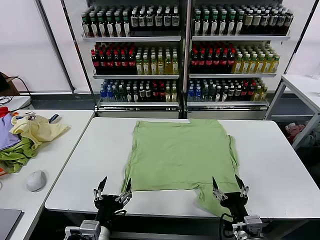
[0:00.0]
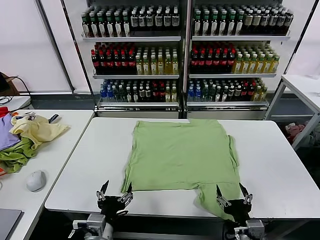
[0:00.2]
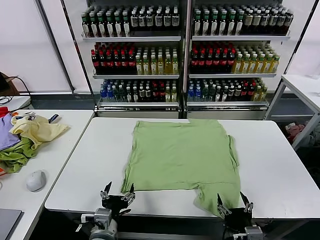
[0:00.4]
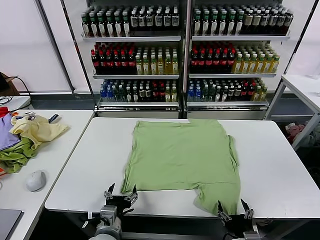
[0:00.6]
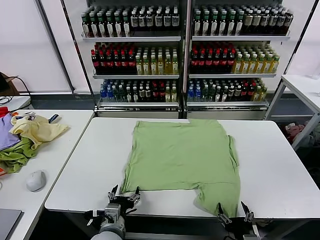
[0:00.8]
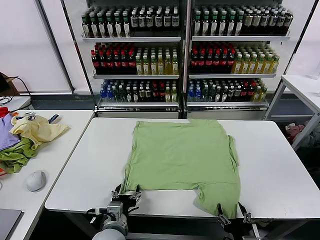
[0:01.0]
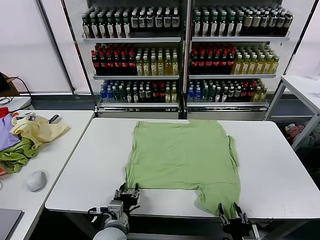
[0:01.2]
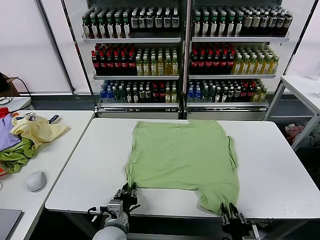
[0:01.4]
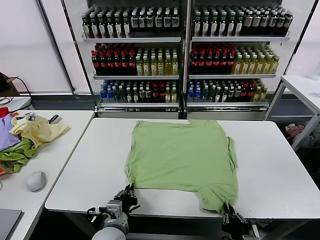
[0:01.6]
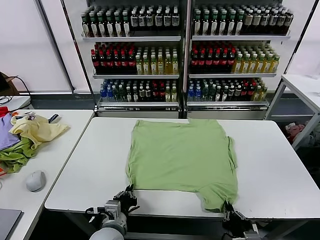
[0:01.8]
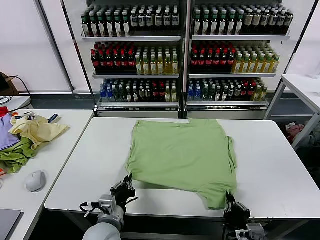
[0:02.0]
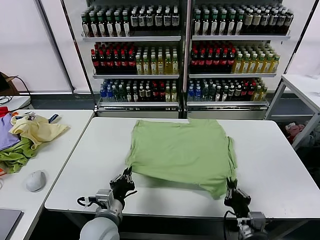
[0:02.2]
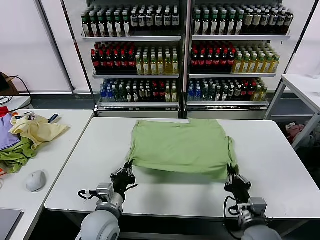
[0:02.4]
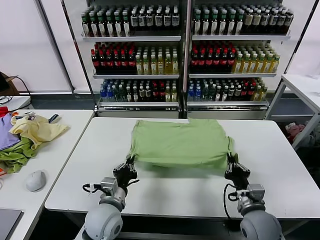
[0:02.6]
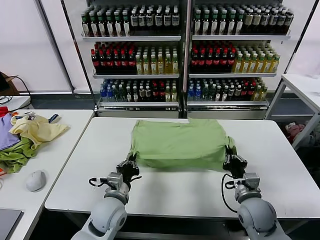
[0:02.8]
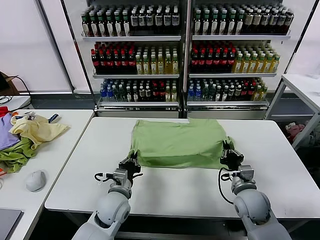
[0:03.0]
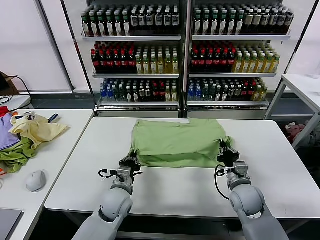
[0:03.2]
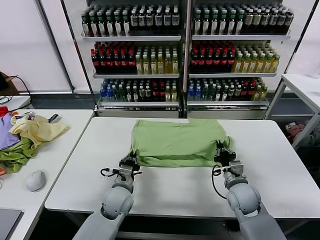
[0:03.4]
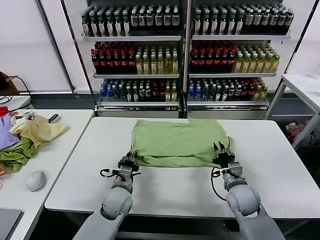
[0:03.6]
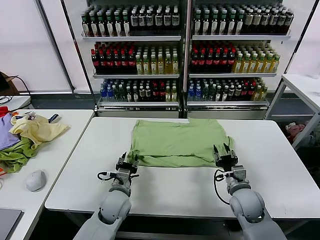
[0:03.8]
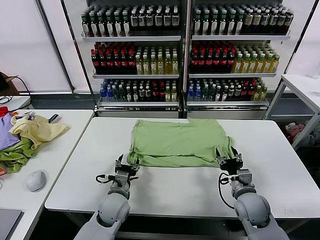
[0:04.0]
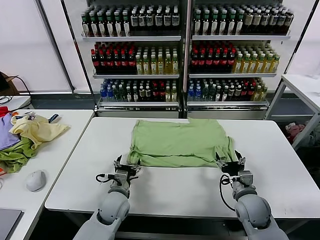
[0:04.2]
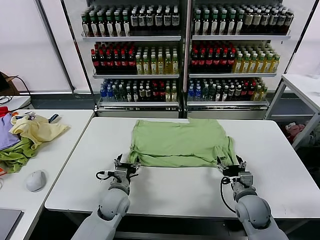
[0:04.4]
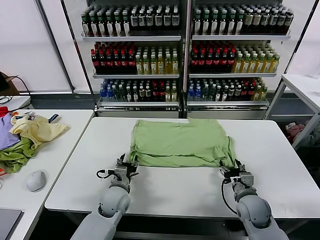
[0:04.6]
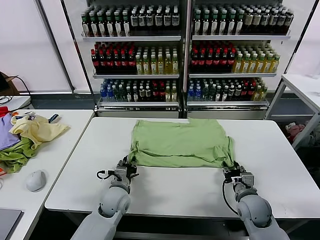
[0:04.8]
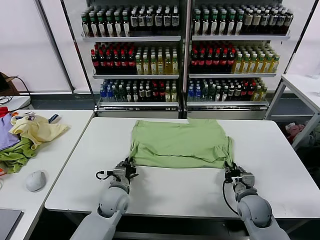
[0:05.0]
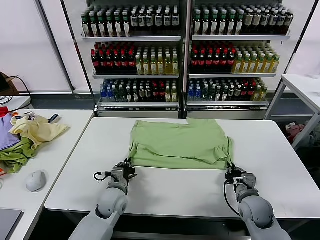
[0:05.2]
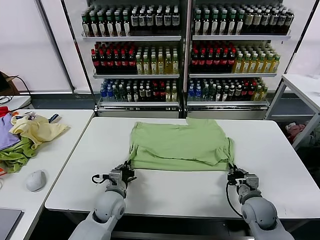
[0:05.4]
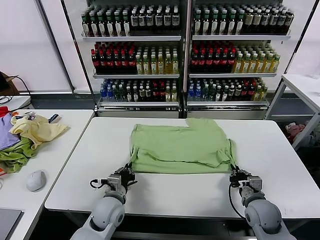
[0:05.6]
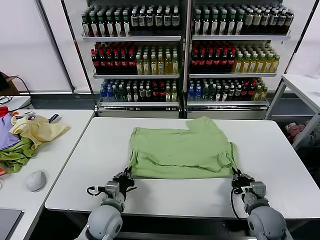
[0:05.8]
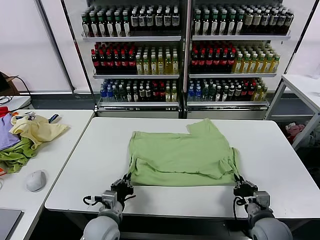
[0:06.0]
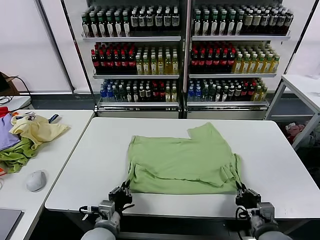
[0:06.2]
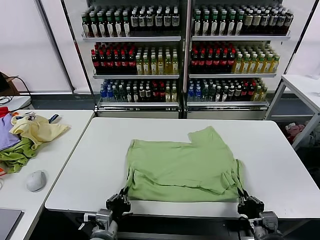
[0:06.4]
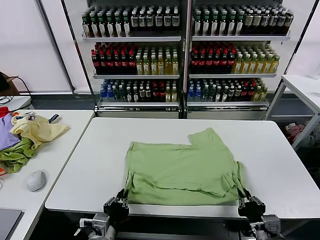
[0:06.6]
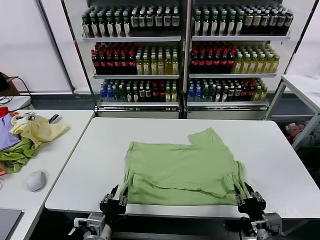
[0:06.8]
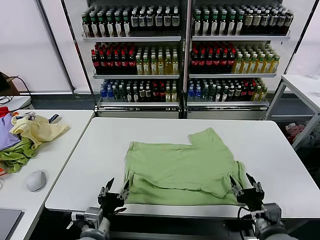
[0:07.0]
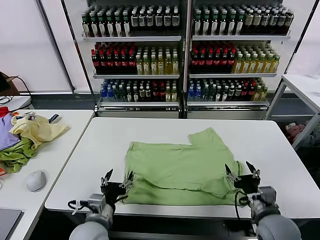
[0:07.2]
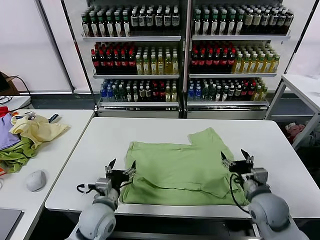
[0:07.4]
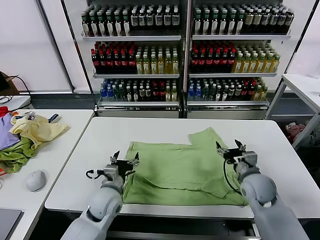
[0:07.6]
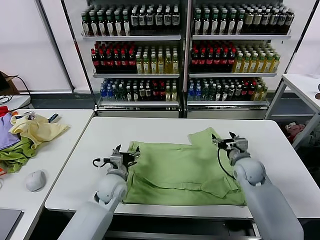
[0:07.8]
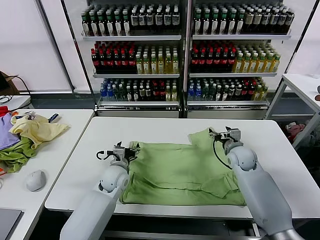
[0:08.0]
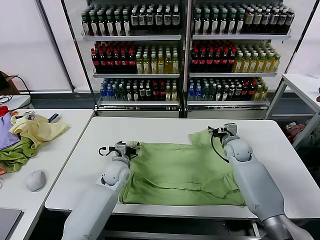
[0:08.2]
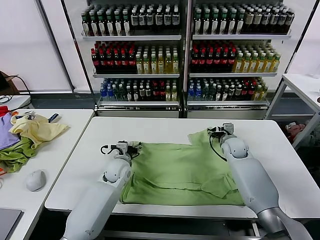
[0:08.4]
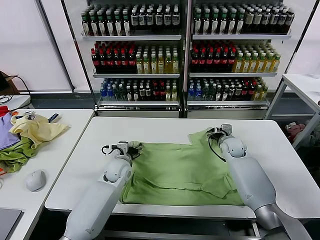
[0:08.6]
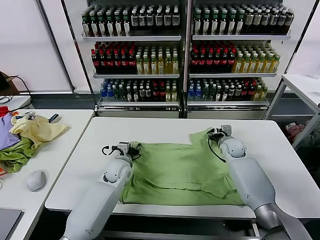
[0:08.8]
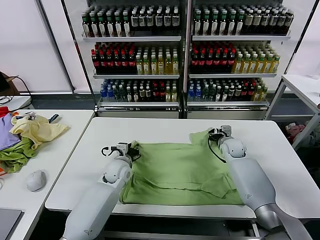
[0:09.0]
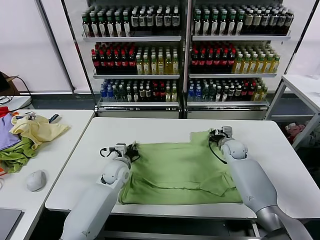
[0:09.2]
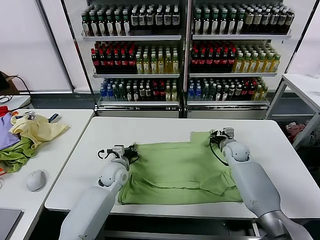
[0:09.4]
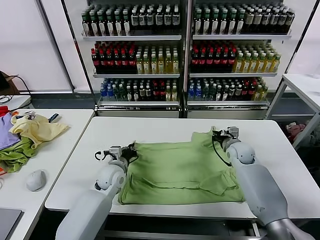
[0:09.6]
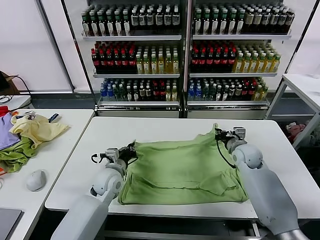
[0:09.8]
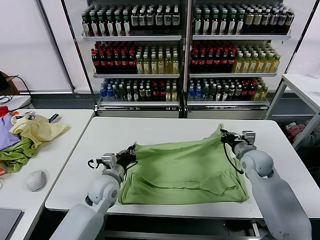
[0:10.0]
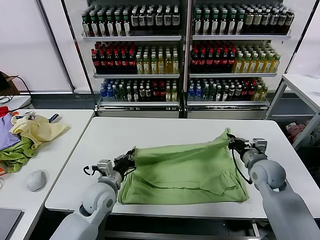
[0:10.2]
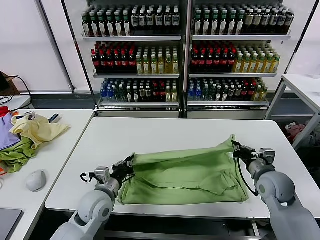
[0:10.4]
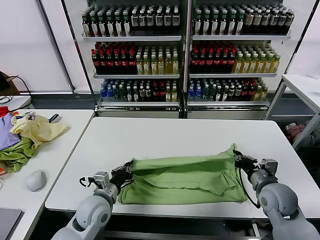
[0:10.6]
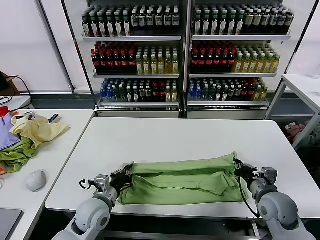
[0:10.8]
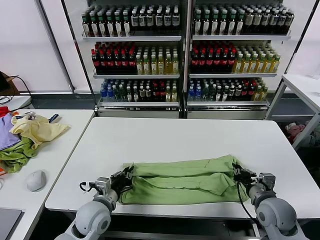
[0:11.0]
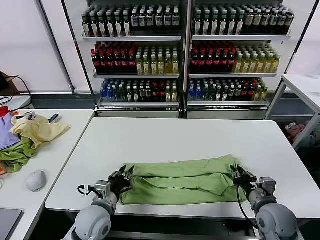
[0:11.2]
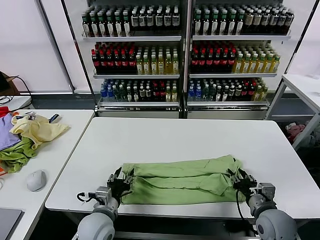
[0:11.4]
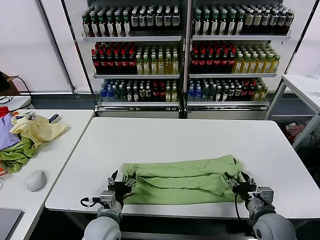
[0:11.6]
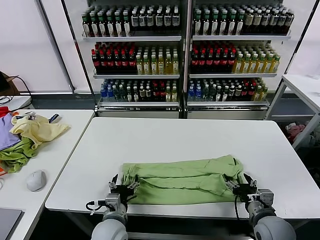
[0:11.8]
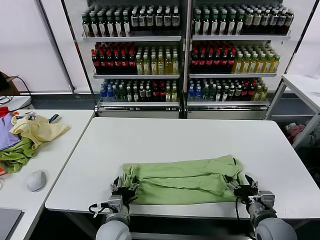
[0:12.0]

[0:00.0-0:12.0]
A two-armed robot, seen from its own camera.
Task of the whole recording: fold and organize the clothes.
Step, 0:00.0 to 0:01.8: use both grippers simultaneously to clamp the lower edge of the clothing fabric.
Step, 0:02.0 to 0:03.6: use both grippers to drag the lower edge of the fabric forward and fold it over the upper edge.
Step, 0:03.8 to 0:06.8: Drag the clothes downward with both gripper.
Step, 0:07.0 to 0:09.2: use both grippers simultaneously to clamp the upper edge of the clothing fabric.
Step, 0:09.6 to 0:11.6: use both grippers to drag the upper edge of the fabric backward and fold it over the lower edge.
0:01.6 to 0:03.0: The right gripper heads forward, covering approximately 20 cm; the left gripper heads forward, covering roughly 10 cm.
0:03.0 to 0:04.4: The right gripper opens up, while the left gripper opens up.
0:04.4 to 0:06.0: Both grippers move backward, some 10 cm. The left gripper closes its fingers. The right gripper closes its fingers.
0:06.0 to 0:07.6: The right gripper is displaced forward by some 15 cm, and opens its fingers. Meanwhile the left gripper is displaced forward by roughly 5 cm, and opens.
0:07.6 to 0:09.0: Both grippers move forward, some 15 cm. The left gripper closes; the right gripper closes its fingers.
0:09.0 to 0:10.4: The grippers both shift backward by approximately 15 cm. The left gripper closes up. The right gripper closes.
0:10.4 to 0:12.0: The left gripper shifts about 10 cm backward, to the right and downward, and opens up. Meanwhile the right gripper moves backward and downward, some 10 cm, and opens its fingers.

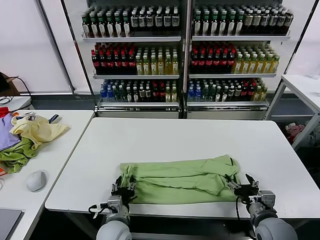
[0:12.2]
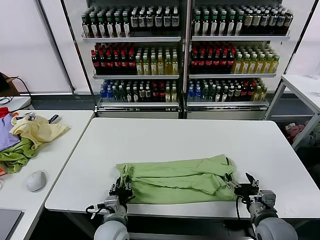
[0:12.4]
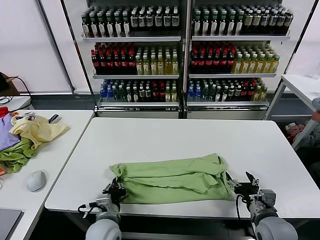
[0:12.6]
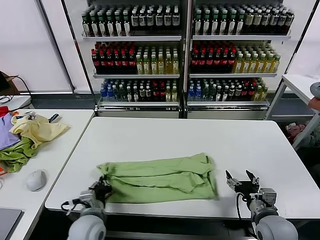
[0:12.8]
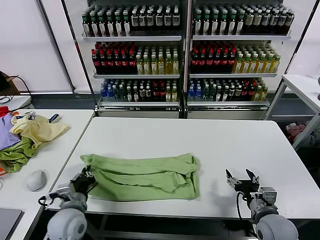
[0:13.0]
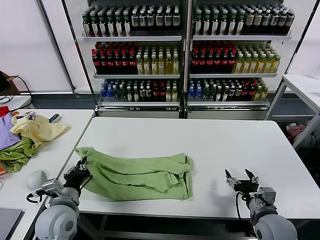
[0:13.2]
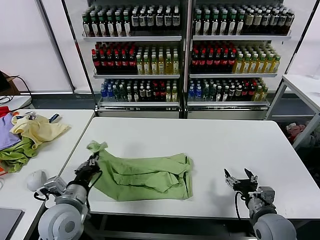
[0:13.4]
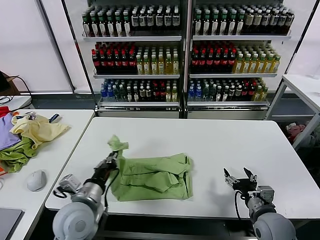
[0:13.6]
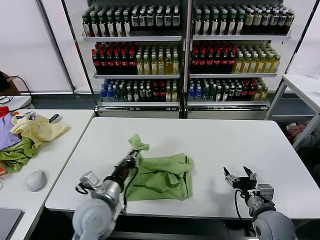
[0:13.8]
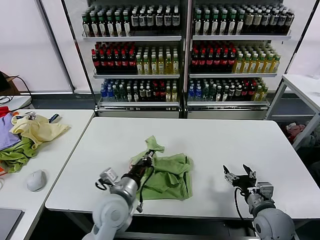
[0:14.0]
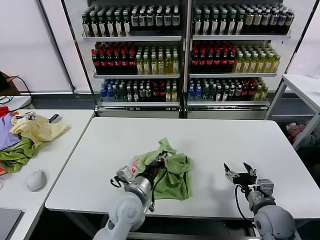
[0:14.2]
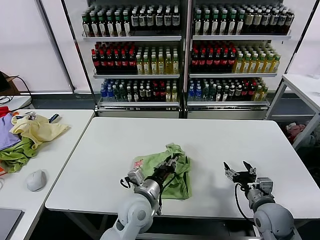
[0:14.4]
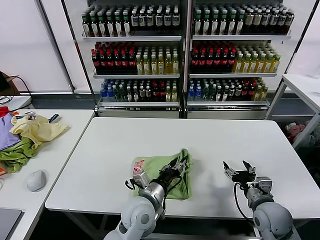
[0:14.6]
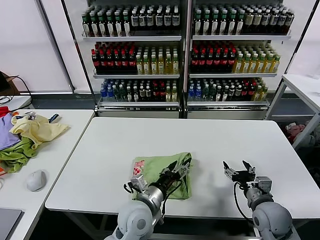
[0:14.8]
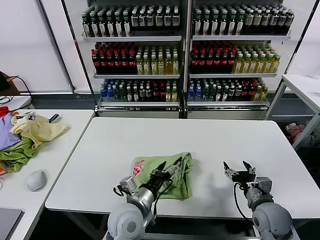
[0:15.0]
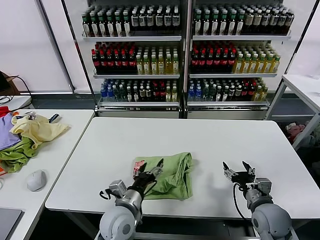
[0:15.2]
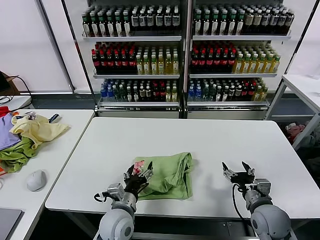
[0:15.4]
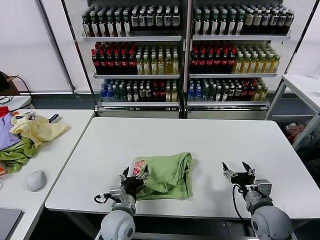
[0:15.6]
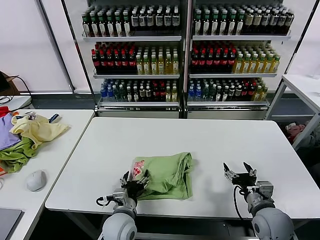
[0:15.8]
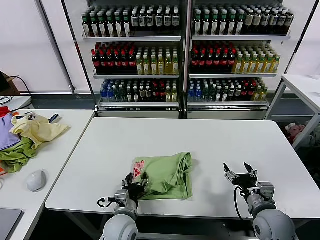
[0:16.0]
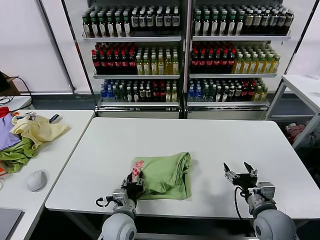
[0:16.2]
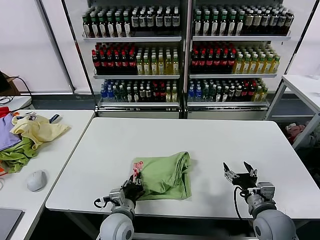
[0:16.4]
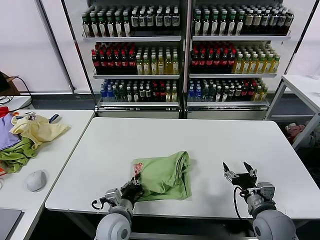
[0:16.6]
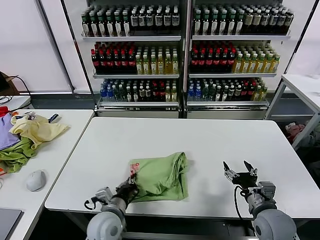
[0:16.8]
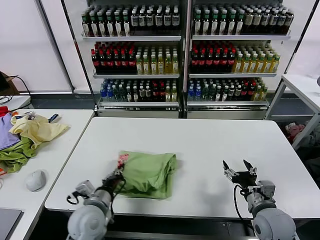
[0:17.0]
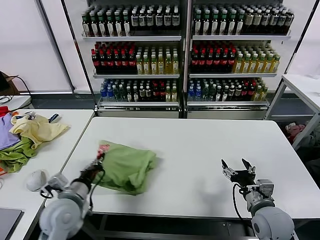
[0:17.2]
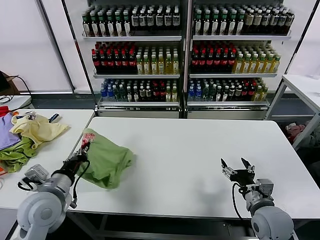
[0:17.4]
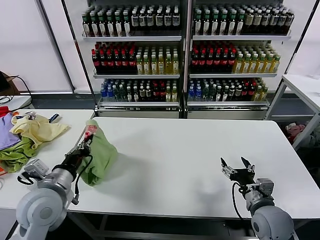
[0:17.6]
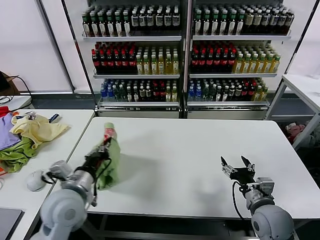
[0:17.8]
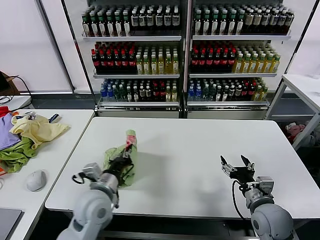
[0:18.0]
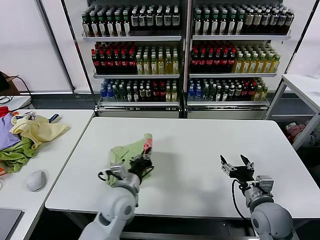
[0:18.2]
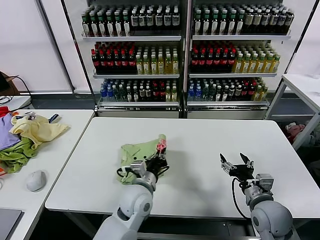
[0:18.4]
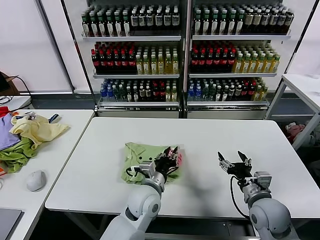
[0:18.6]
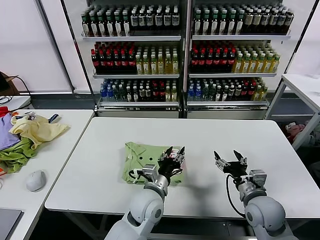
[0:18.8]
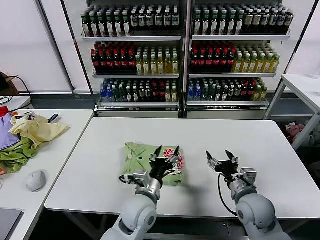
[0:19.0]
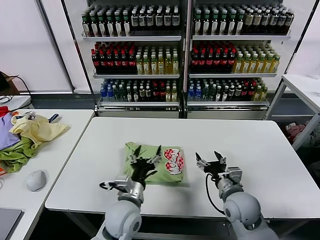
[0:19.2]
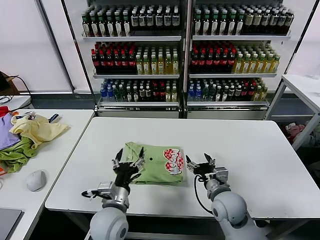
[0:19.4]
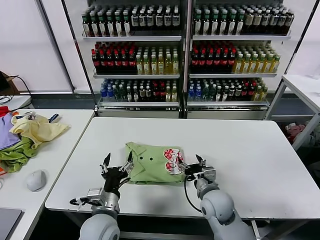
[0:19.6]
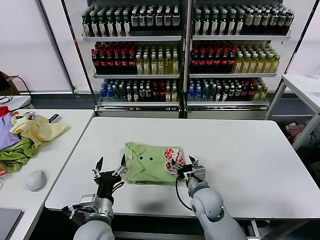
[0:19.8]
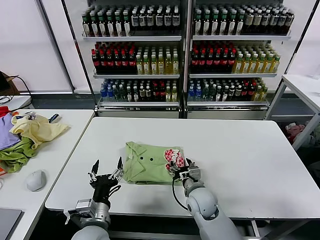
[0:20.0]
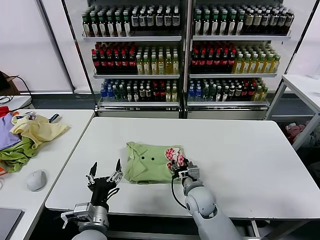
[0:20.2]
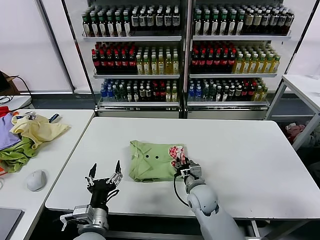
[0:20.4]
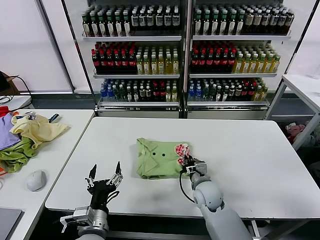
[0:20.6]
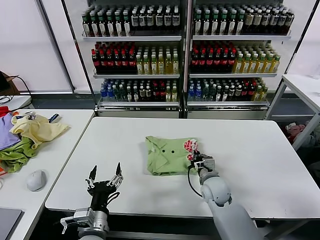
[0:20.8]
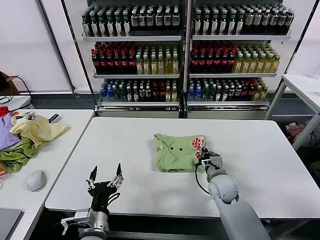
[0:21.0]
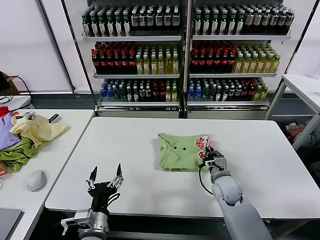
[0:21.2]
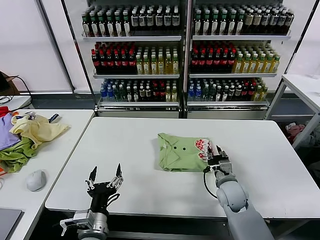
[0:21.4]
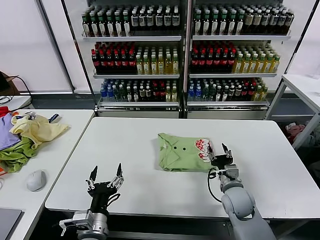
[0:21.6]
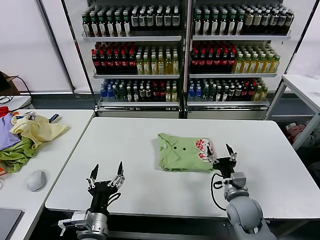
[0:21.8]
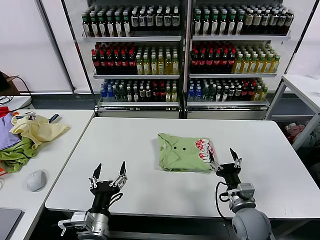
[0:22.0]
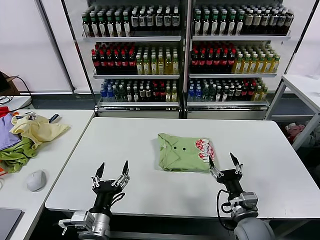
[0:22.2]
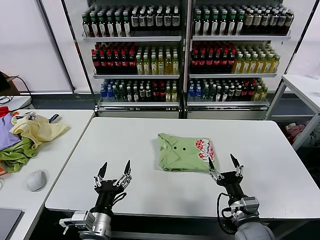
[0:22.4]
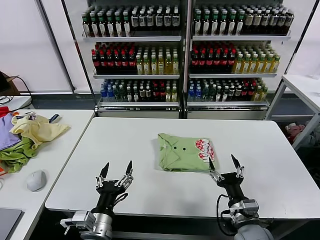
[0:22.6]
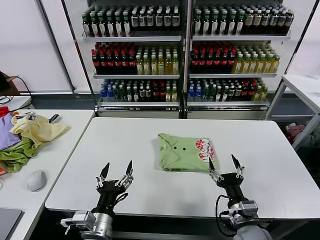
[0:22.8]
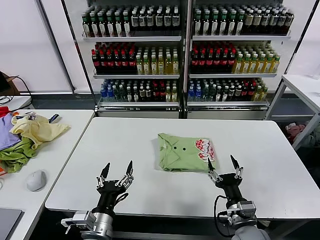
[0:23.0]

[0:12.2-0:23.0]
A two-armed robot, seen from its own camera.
Task of the whole recording: fold and organize the clothes.
Step, 0:12.6 to 0:14.6: use the left gripper to drag the left edge of the fabric to the left and folds it over the right edge.
Step, 0:14.8 to 0:18.6: Flip the folded clothes over with left gripper.
Step, 0:18.8 to 0:21.4: Drag the clothes to the center of the table.
0:12.2 to 0:13.8: The left gripper is displaced upward by about 10 cm, reaches about 15 cm to the left, then returns, and closes up.
0:13.8 to 0:15.2: The left gripper moves to the right and downward, approximately 10 cm, and opens.
0:15.2 to 0:16.8: The left gripper moves some 5 cm, and closes.
0:16.8 to 0:18.4: The left gripper heads forward and upward, covering about 10 cm, and reaches about 15 cm to the left, then returns.
0:18.4 to 0:20.0: The right gripper goes about 20 cm to the left and forward, while the left gripper travels backward and to the left by some 15 cm, and opens its fingers.
0:20.0 to 0:21.4: The right gripper travels to the right by roughly 10 cm, and closes up.
0:21.4 to 0:23.0: The right gripper is displaced backward by approximately 15 cm, and opens.
